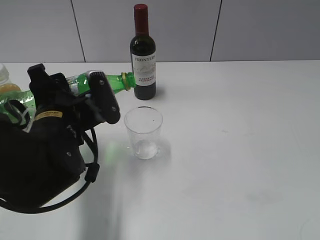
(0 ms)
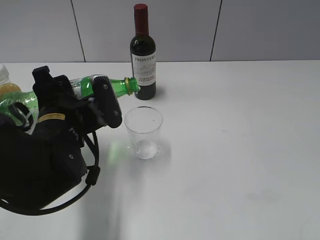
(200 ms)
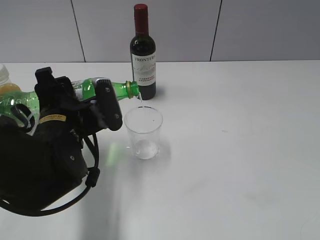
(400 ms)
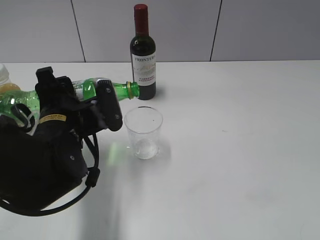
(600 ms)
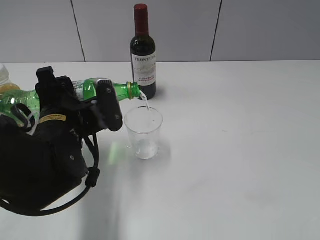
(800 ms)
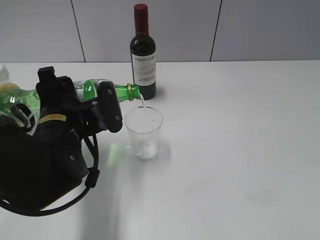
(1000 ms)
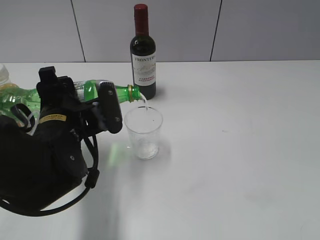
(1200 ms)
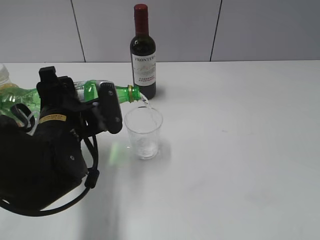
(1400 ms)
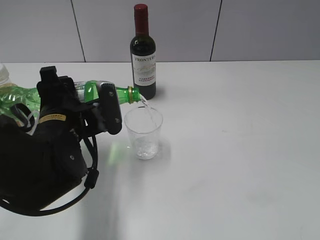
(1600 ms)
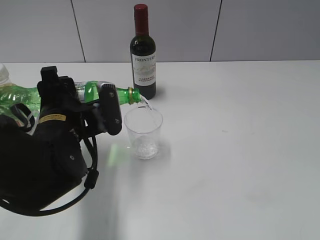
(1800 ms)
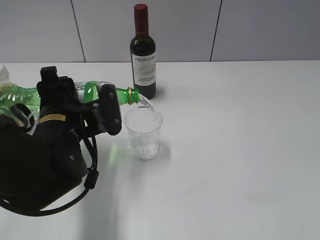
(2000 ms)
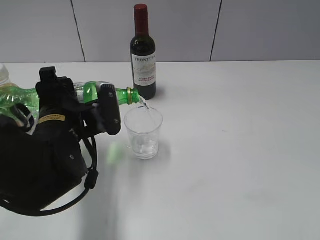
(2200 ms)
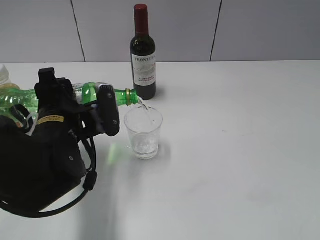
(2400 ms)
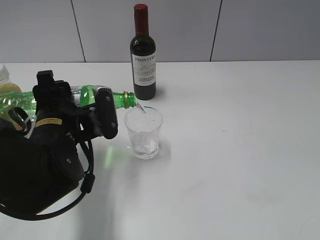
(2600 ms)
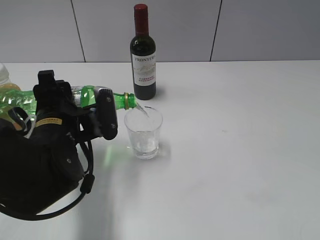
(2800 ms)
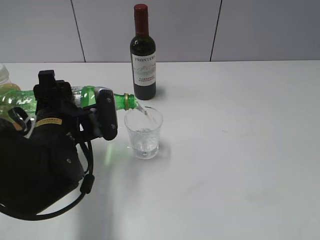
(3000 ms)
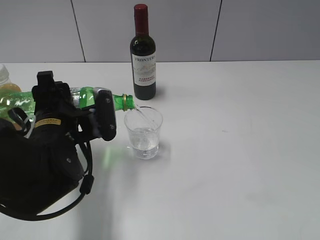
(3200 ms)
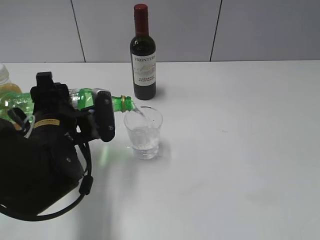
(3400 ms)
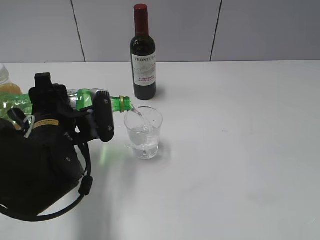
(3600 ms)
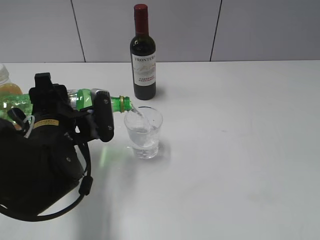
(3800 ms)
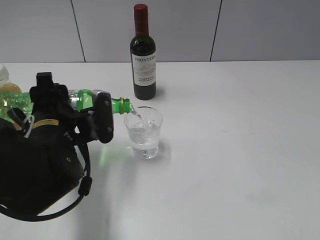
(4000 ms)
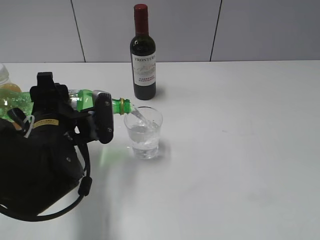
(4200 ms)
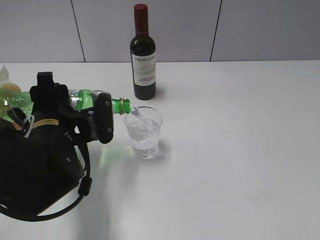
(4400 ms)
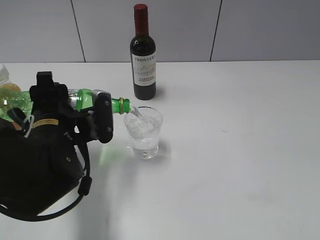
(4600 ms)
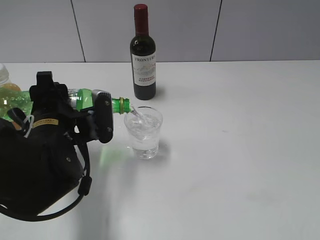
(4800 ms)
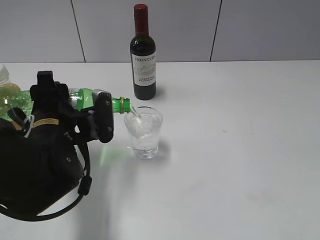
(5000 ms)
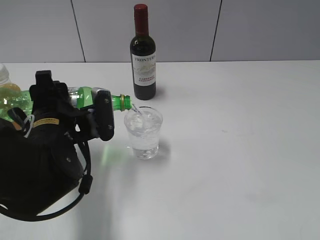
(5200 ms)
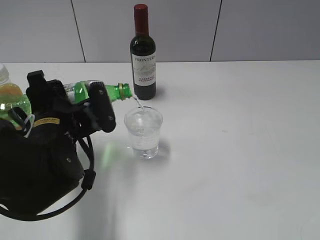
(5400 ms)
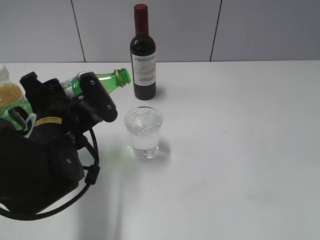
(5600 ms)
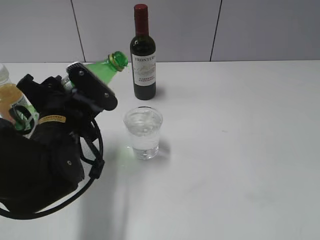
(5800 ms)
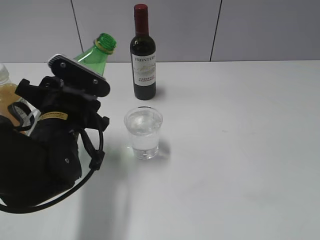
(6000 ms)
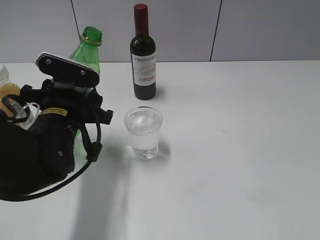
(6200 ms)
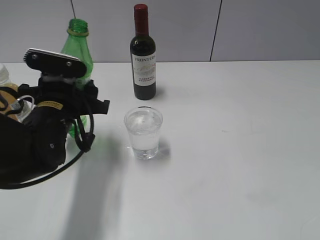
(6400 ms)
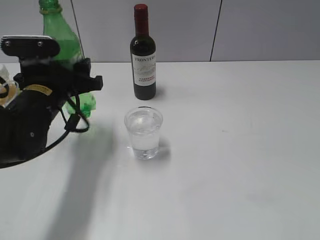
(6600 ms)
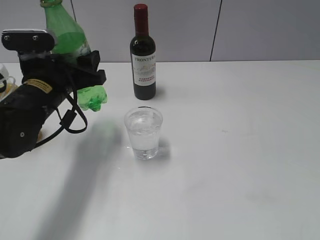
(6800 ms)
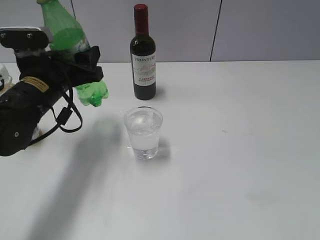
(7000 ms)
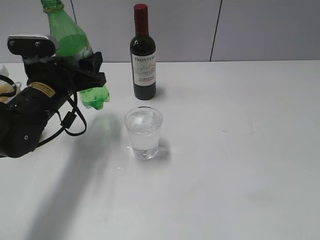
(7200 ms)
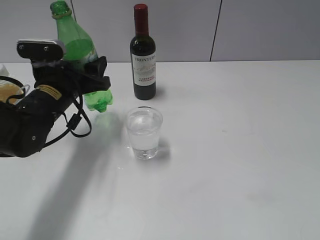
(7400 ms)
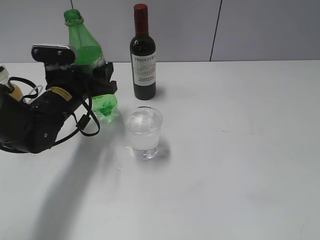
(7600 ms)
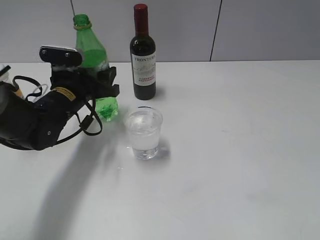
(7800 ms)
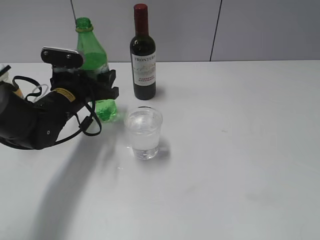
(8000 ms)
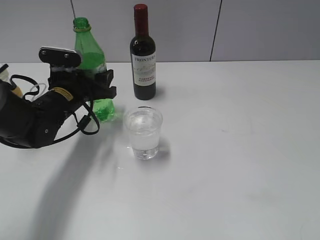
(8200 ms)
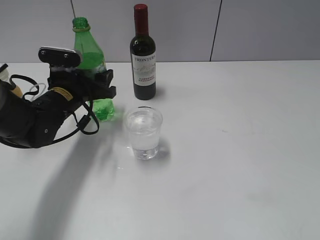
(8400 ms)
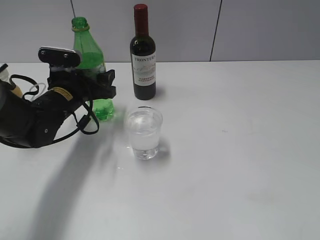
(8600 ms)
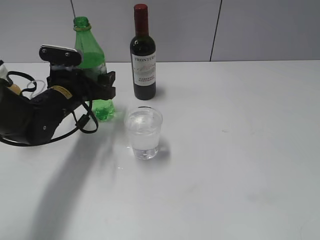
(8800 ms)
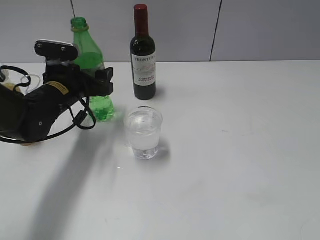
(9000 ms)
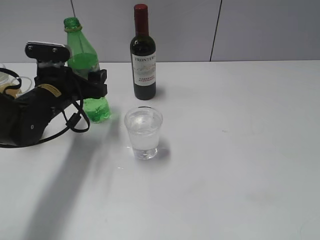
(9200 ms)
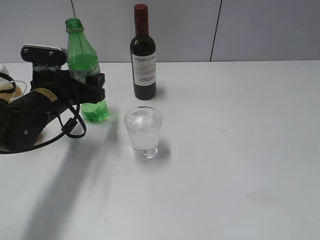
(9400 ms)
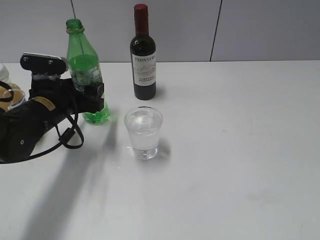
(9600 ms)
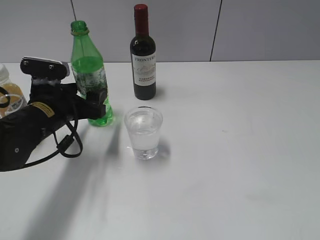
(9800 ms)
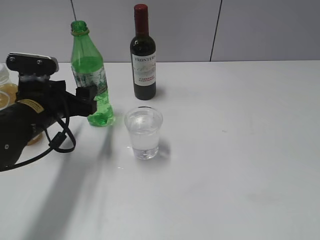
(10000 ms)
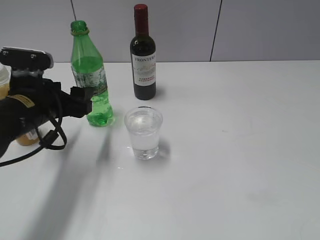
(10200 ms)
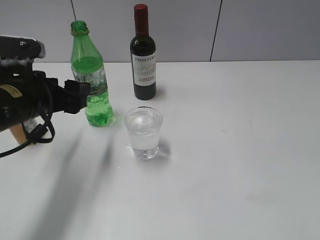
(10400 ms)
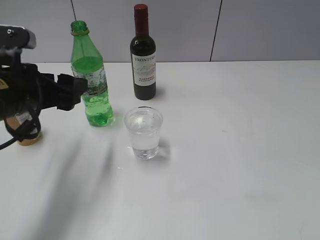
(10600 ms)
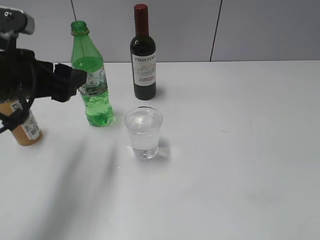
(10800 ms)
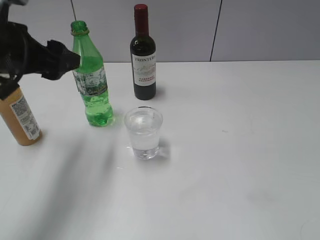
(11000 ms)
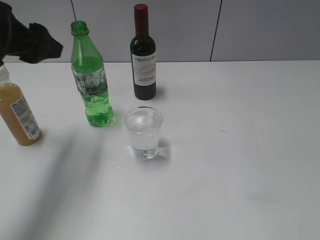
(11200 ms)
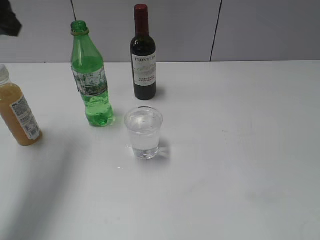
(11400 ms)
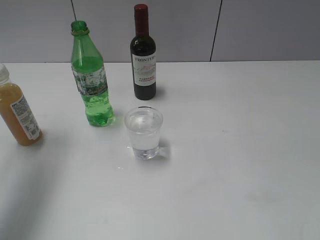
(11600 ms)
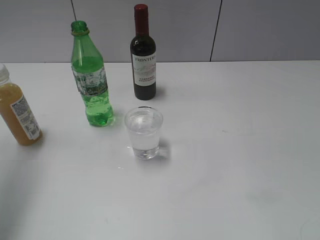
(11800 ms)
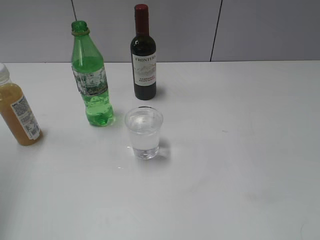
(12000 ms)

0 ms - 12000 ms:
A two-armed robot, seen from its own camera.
Step, 0 ms - 5600 ms: Pour the sprite from bottle to cup with left gripper.
Step, 5800 ms - 10000 ms: Place the sprite bottle on the table with left gripper.
0 ms - 1600 ms: The grippers stay close to where they were, moving slightly.
1600 ms - 3000 ms: Neither gripper changes place.
3000 ms - 4400 ms: Neither gripper changes place.
6000 ms - 7600 ms: The left gripper is displaced forward by approximately 10 cm.
7600 ms - 9000 ms: The grippers move only a little.
9000 ms - 10400 ms: The left gripper shifts about 10 cm backward.
10400 ms - 12000 ms: The left gripper heads upward and to the left, covering about 25 cm.

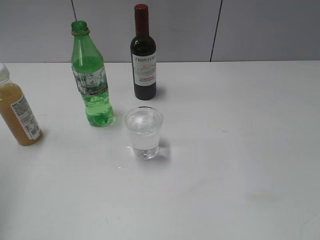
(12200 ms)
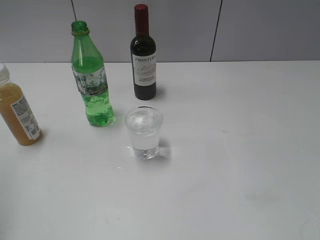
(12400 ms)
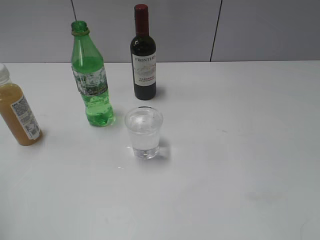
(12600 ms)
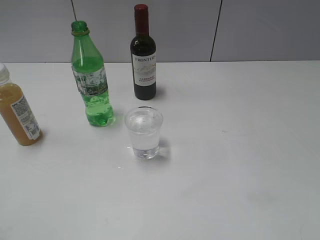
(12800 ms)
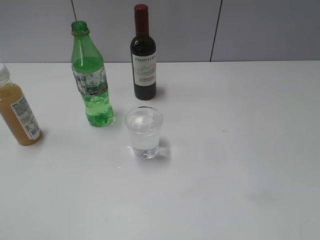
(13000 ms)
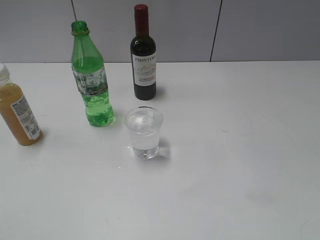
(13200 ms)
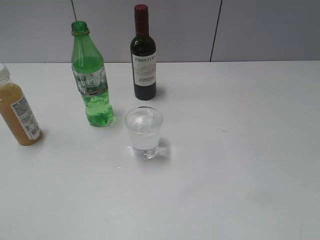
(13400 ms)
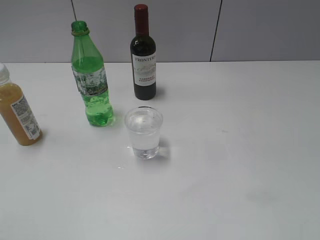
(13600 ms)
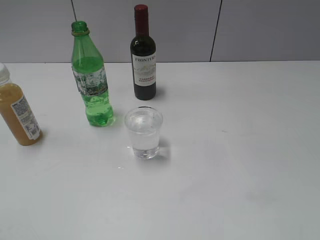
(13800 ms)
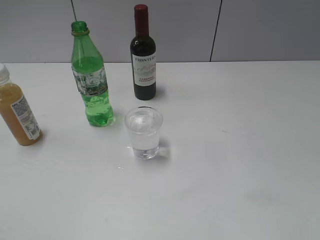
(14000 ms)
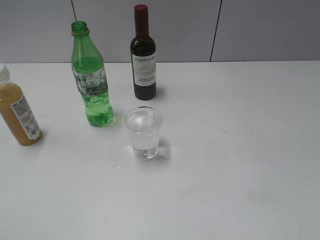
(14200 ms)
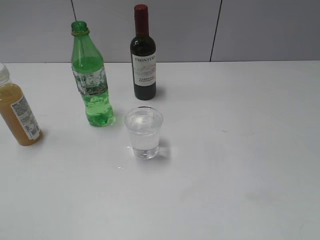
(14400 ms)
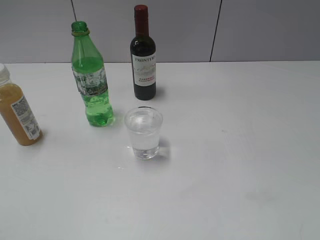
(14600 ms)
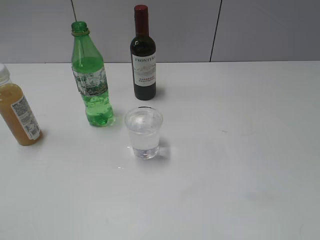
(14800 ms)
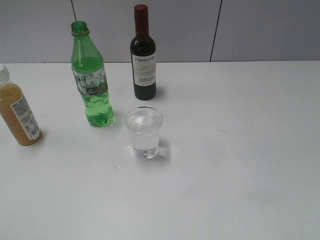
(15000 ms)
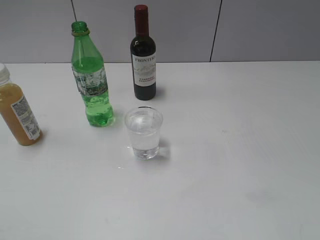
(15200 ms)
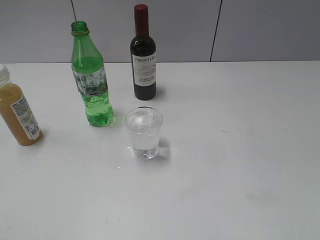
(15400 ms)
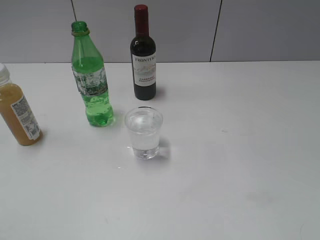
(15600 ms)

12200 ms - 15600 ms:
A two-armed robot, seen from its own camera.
12200 ms - 13800 ms: The left gripper moves backward and downward, about 25 cm.

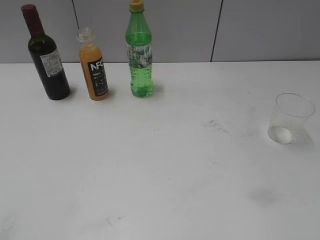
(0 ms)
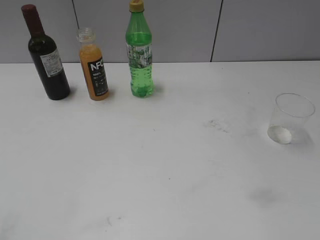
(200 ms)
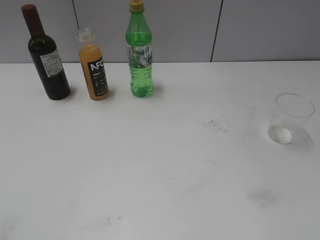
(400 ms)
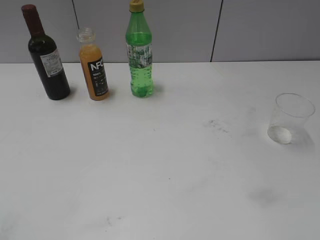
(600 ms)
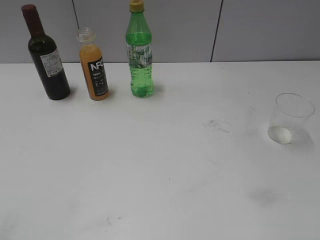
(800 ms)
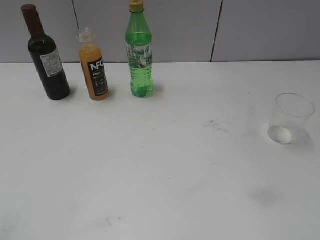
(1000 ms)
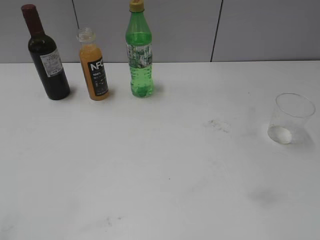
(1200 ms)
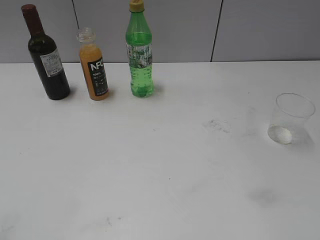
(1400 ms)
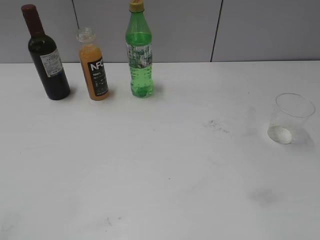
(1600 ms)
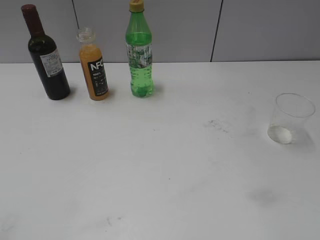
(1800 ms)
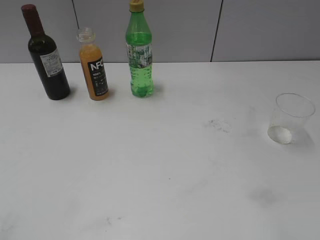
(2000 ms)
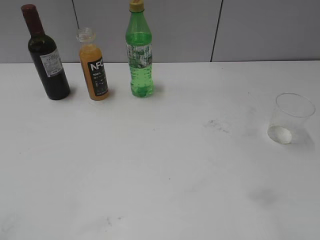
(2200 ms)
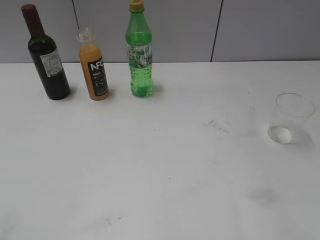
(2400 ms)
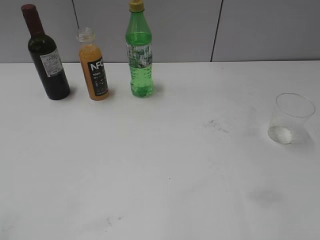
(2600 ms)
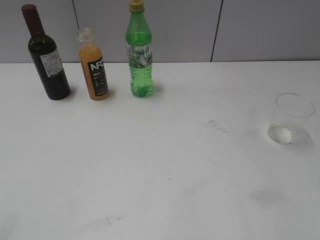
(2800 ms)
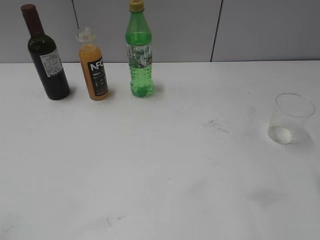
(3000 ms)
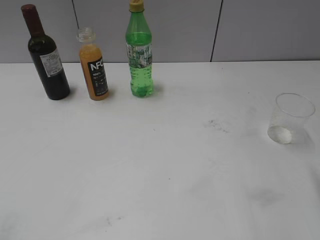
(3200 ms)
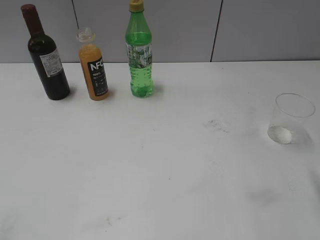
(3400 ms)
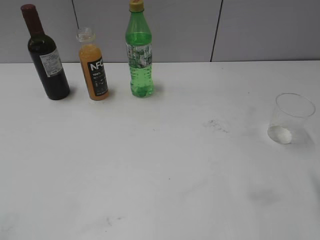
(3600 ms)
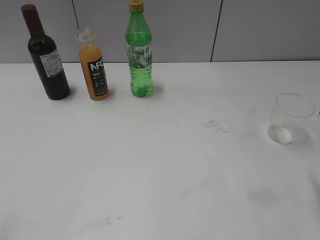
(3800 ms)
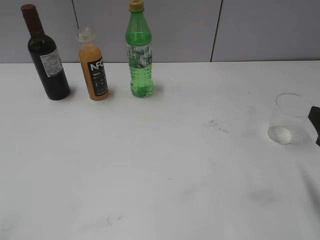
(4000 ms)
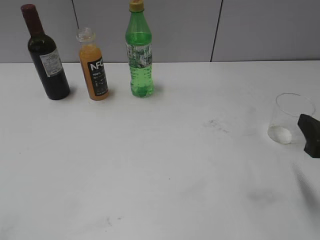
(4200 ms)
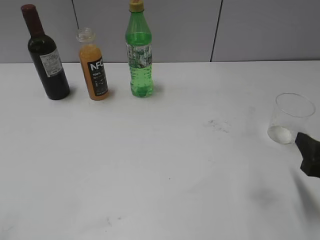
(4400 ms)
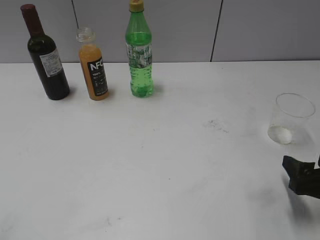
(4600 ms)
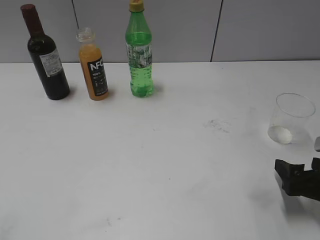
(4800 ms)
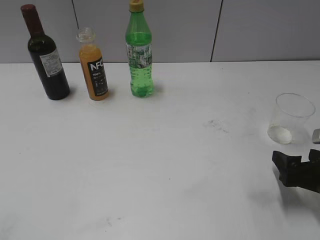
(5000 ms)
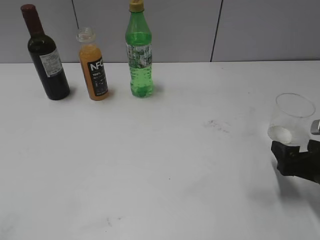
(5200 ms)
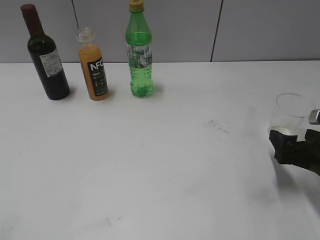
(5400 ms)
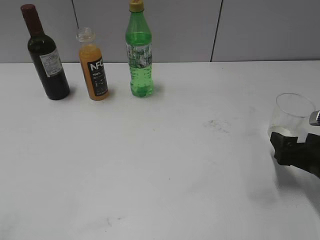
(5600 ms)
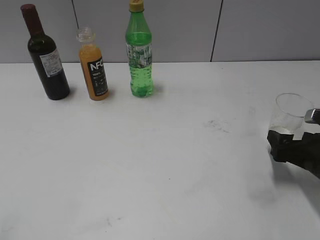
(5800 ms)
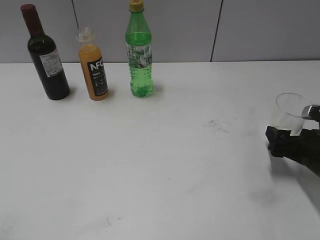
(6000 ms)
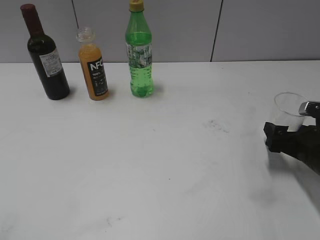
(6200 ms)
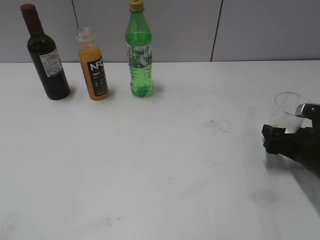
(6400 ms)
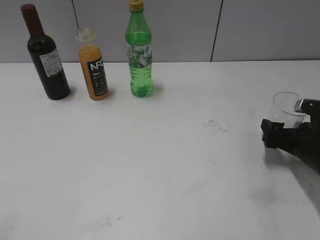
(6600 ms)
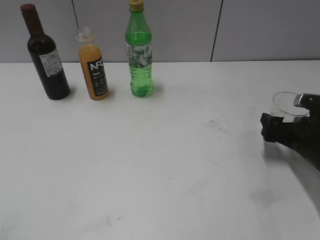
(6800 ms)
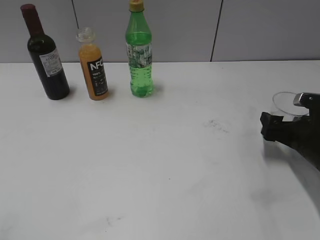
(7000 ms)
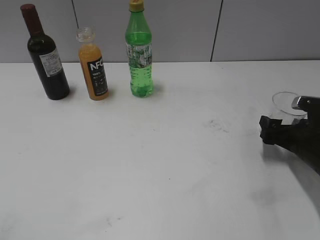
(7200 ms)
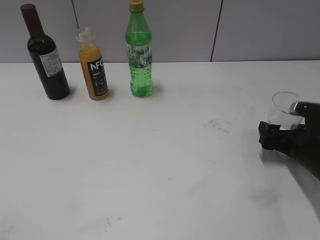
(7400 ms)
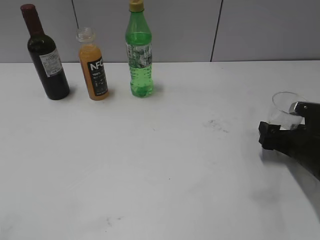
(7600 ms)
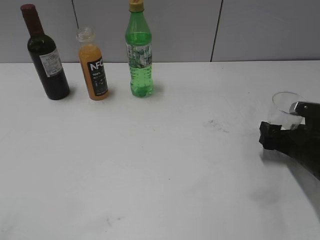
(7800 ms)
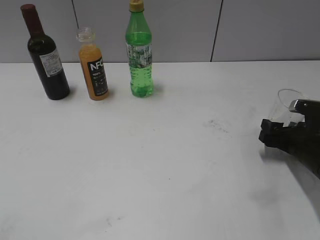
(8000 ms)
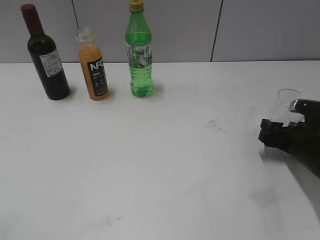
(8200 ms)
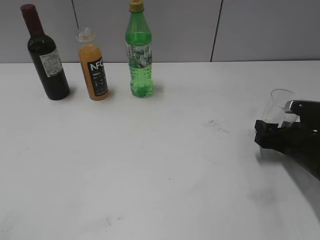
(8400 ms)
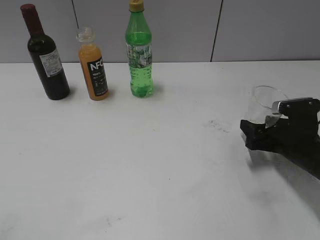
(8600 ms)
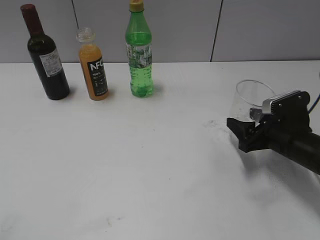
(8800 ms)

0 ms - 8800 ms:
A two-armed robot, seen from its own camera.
Step, 4000 ms - 8200 ms: Grasp the transparent cup with right gripper.
3000 ms - 4400 ms: The right gripper goes about 10 cm downward.
4400 ms - 5800 ms: The right gripper travels forward and downward by about 10 cm, and opens its fingers.
5800 ms - 7400 ms: The right gripper ends up about 5 cm from where it was.
7400 ms - 8800 ms: The right gripper closes its fingers.
